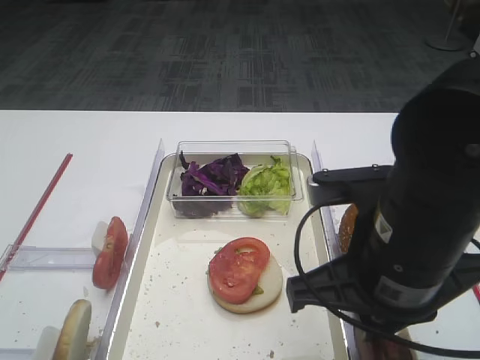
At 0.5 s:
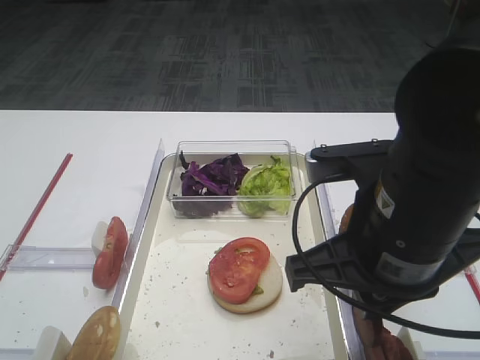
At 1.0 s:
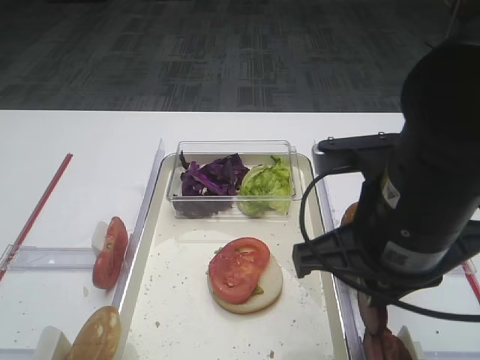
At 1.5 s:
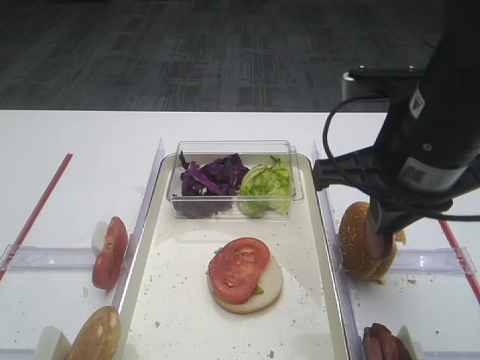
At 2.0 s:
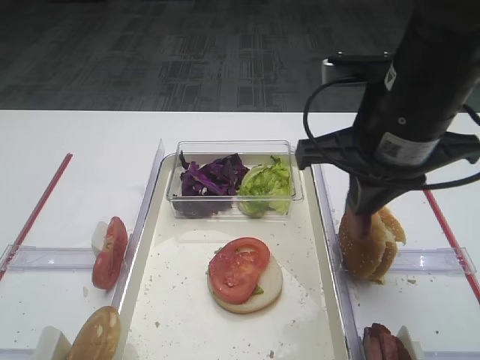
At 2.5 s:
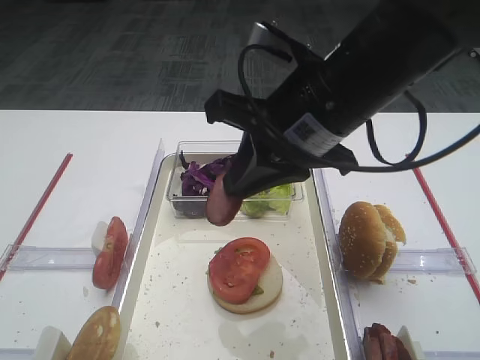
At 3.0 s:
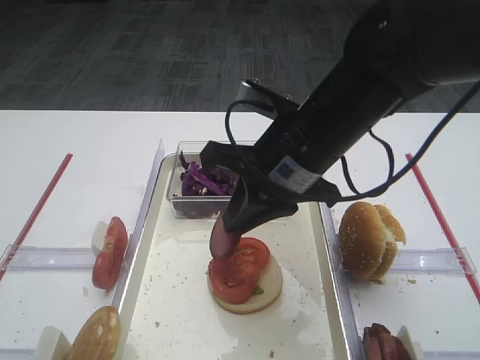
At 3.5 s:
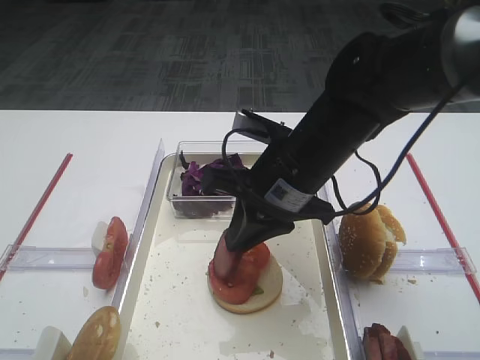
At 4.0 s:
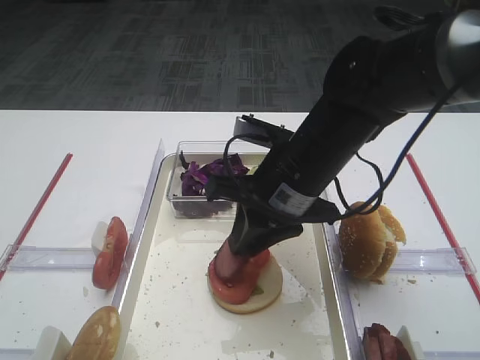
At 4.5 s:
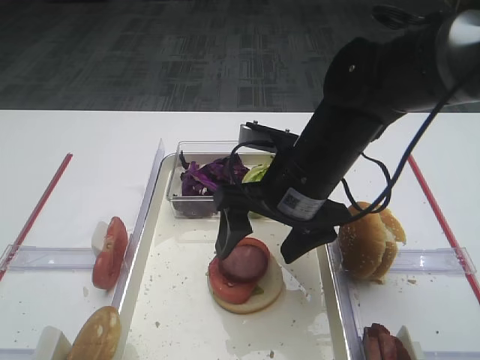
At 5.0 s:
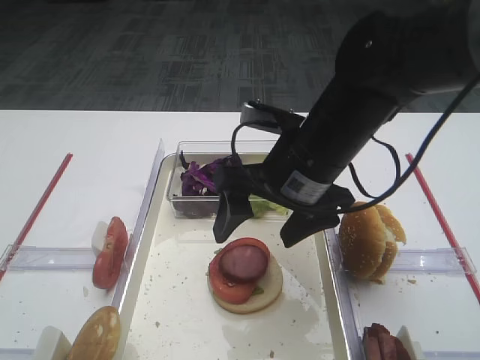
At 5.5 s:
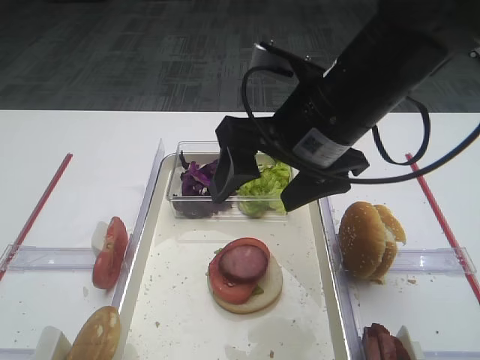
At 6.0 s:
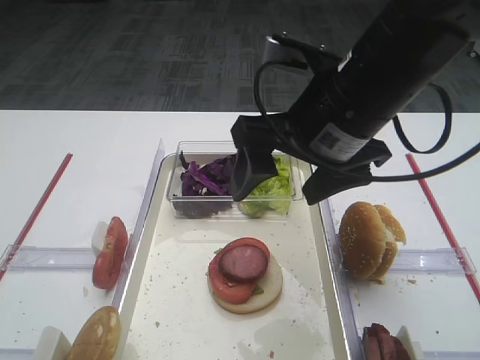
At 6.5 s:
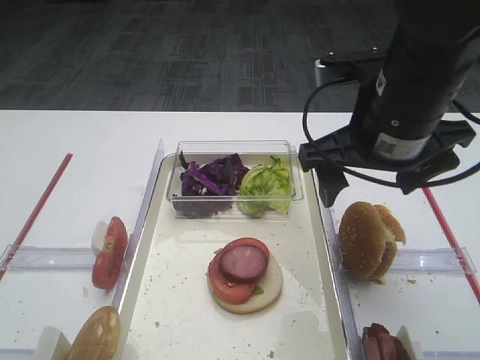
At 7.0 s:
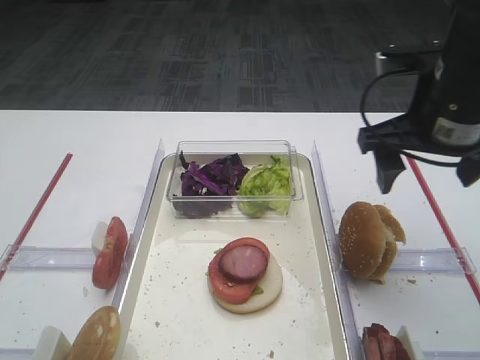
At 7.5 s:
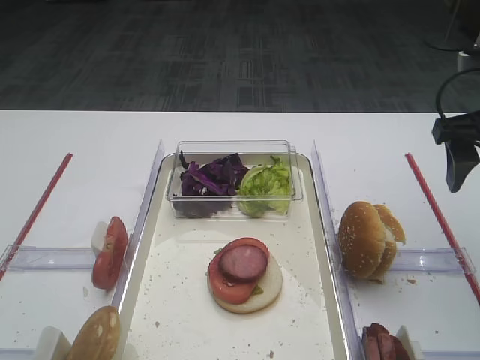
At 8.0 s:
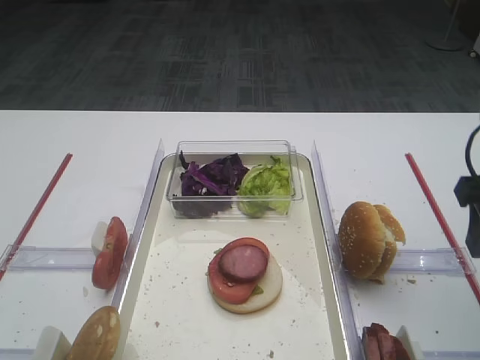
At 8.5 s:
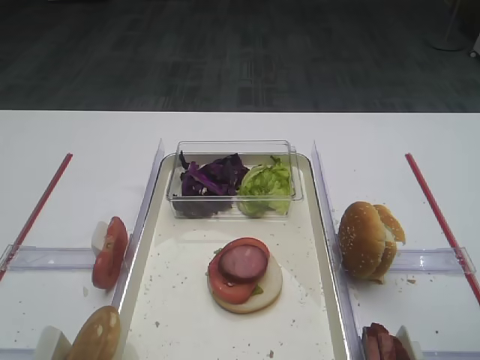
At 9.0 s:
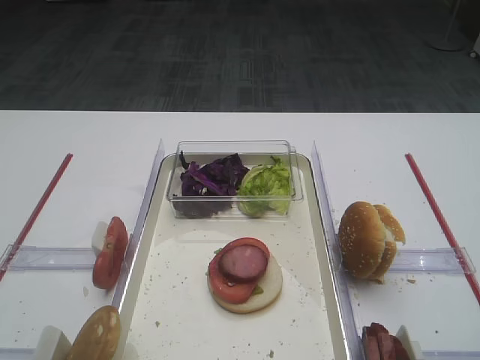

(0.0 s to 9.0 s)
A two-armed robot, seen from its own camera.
Step, 1.5 s - 5.0 s: Place the cutlet on the tomato slice with the right gripper.
0.0 s - 2.0 s: The right gripper moves forward and upward, approximately 10 cm.
2.0 s - 4.5 s: The right gripper moves downward and to the left, some 10 cm, and opens its fingers.
4.5 s - 7.0 s: The right gripper is displaced to the right and upward by roughly 15 cm.
7.0 s - 9.0 s: The right gripper travels backward and to the right by about 25 cm.

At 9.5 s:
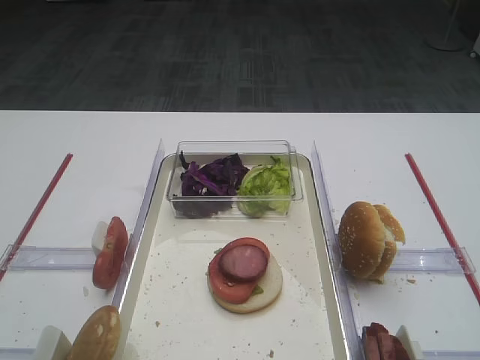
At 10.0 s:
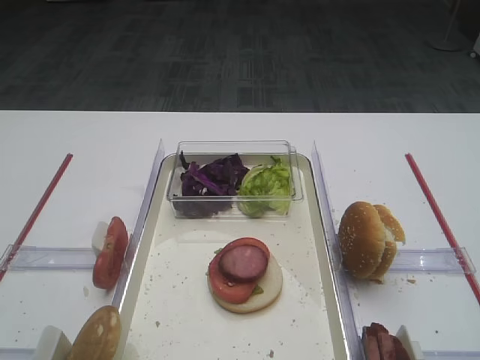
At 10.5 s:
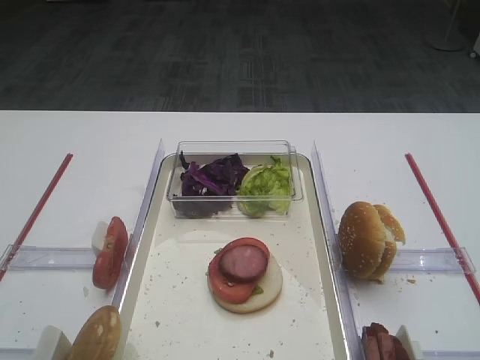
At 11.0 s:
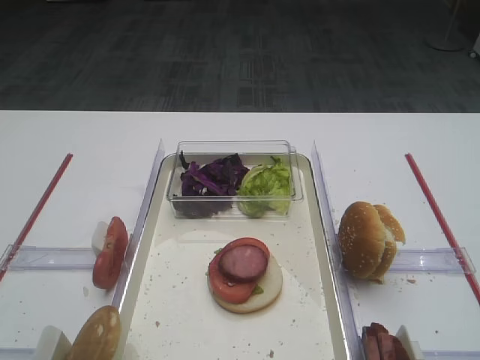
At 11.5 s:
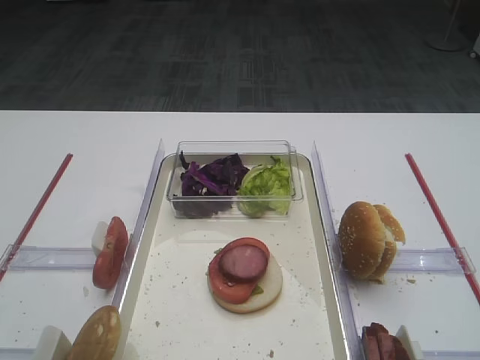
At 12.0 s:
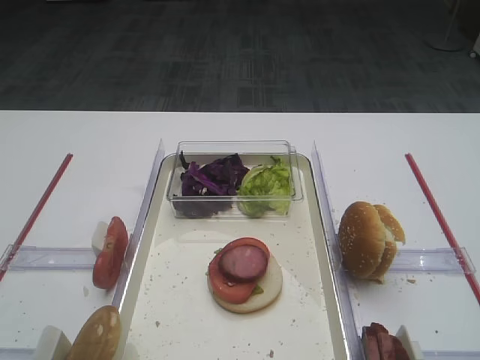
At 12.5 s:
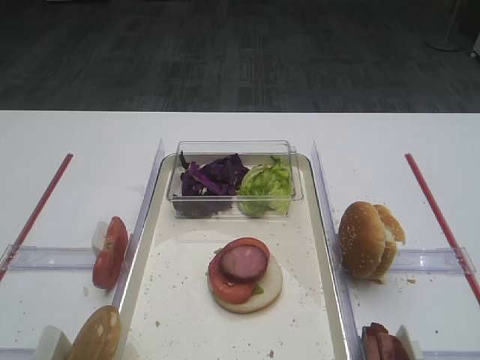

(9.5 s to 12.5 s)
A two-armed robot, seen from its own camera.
11.0 s - 12.5 s: The two grippers keep their place.
